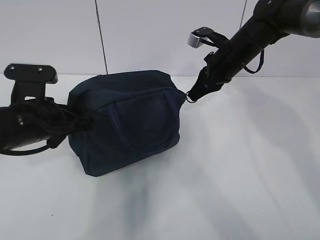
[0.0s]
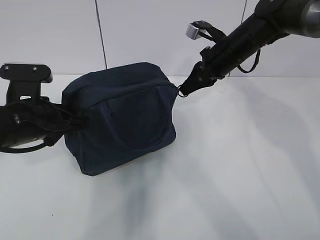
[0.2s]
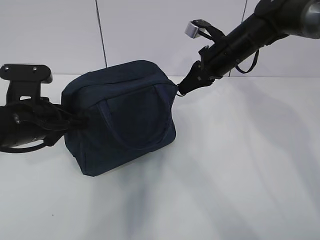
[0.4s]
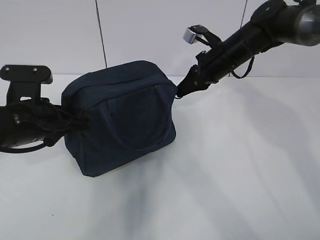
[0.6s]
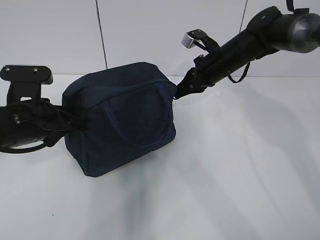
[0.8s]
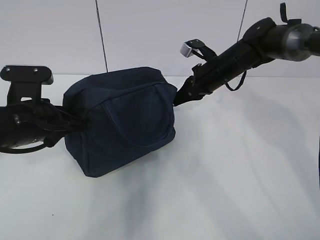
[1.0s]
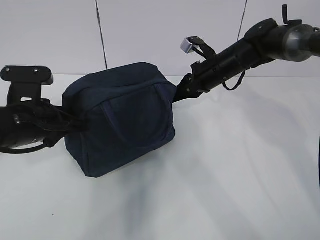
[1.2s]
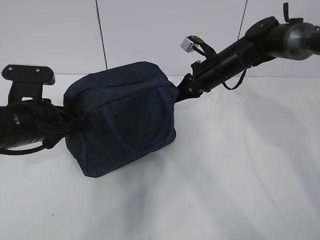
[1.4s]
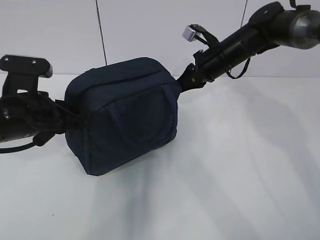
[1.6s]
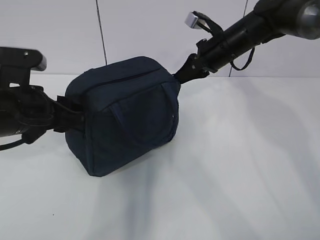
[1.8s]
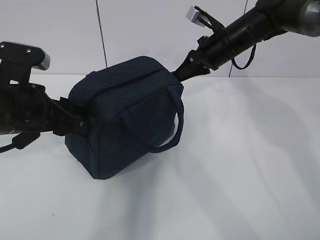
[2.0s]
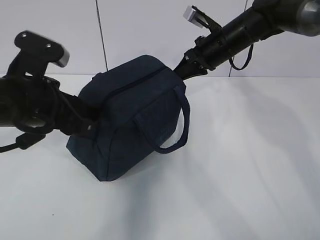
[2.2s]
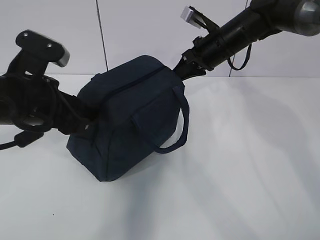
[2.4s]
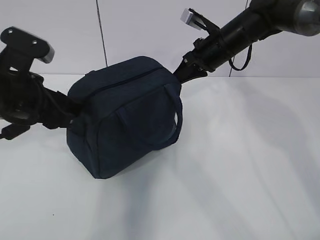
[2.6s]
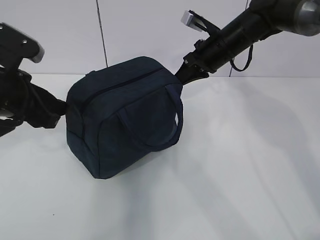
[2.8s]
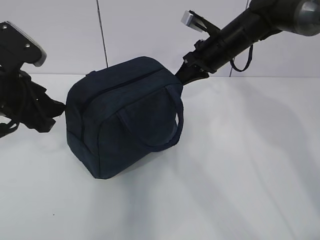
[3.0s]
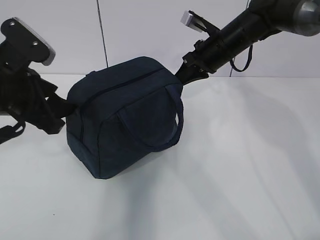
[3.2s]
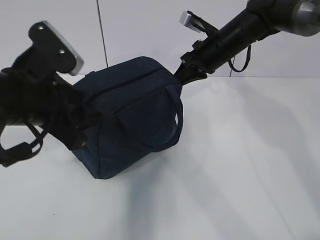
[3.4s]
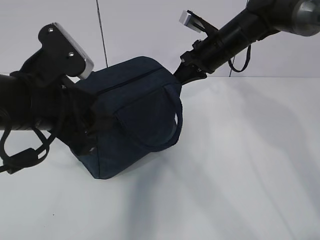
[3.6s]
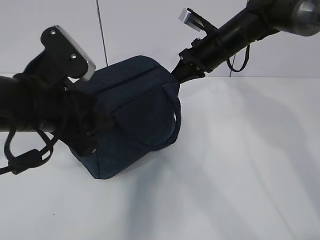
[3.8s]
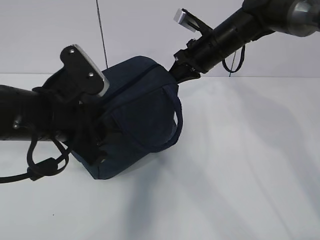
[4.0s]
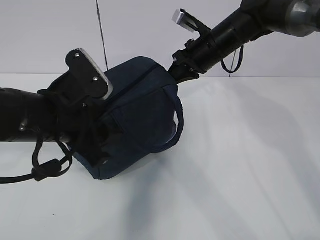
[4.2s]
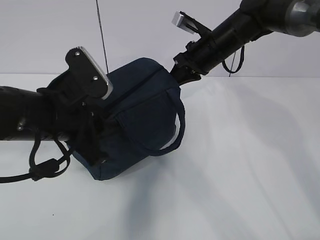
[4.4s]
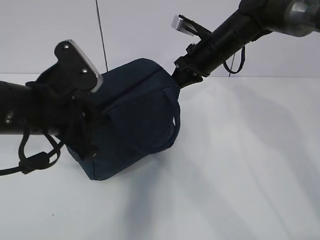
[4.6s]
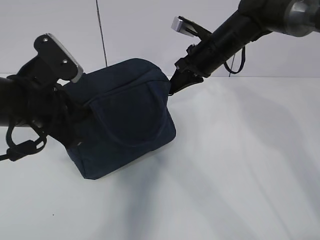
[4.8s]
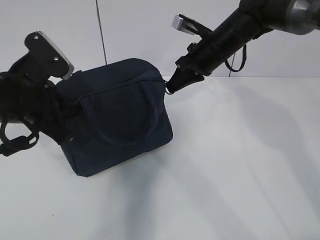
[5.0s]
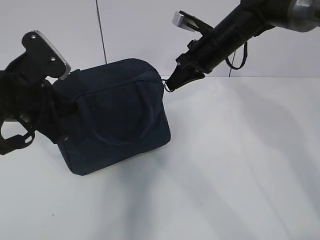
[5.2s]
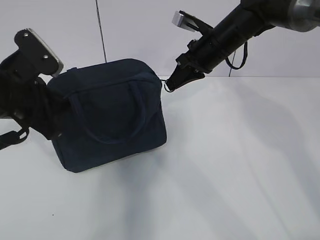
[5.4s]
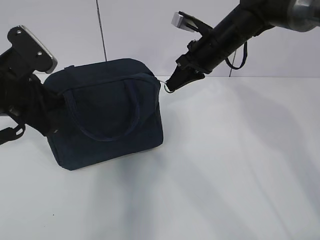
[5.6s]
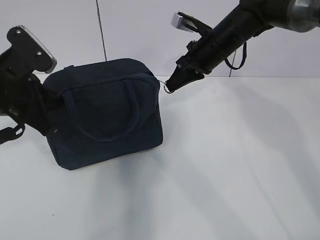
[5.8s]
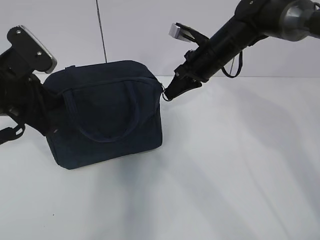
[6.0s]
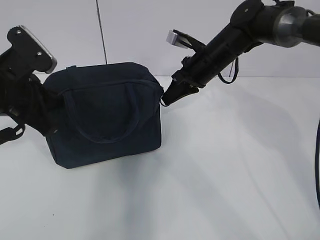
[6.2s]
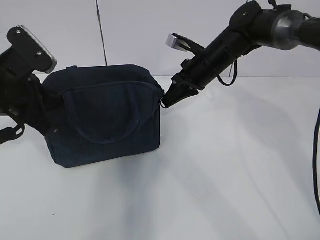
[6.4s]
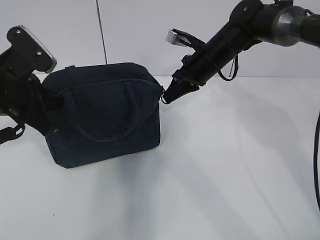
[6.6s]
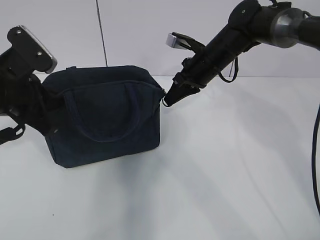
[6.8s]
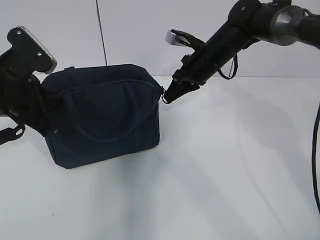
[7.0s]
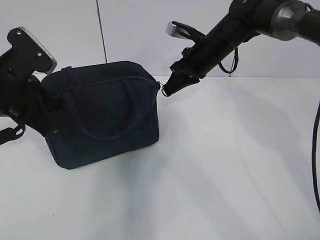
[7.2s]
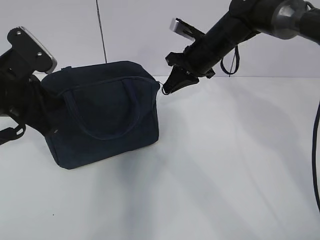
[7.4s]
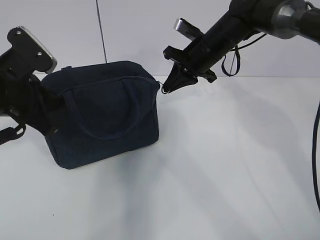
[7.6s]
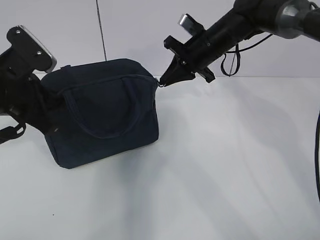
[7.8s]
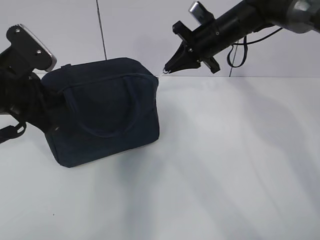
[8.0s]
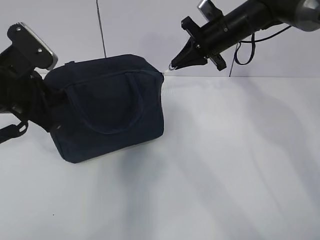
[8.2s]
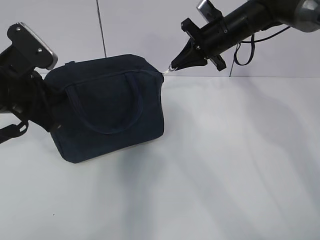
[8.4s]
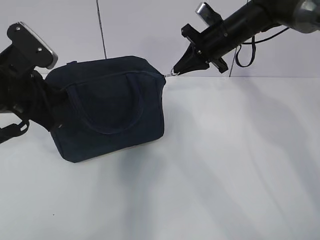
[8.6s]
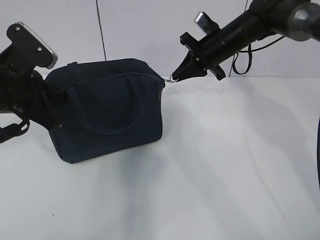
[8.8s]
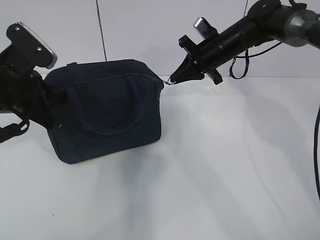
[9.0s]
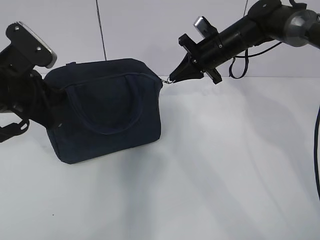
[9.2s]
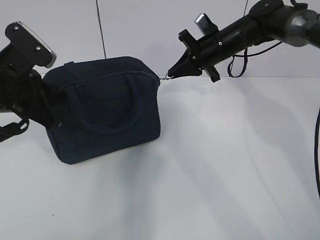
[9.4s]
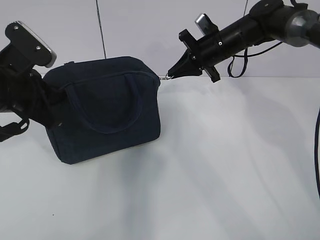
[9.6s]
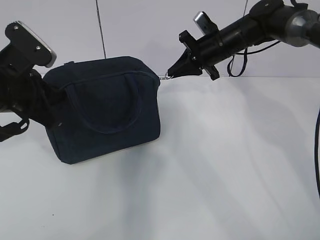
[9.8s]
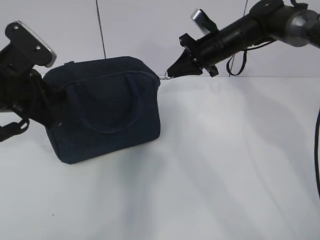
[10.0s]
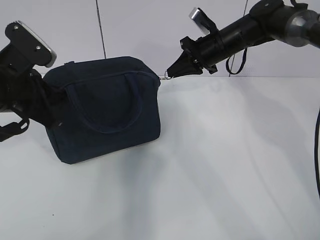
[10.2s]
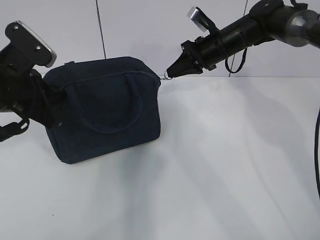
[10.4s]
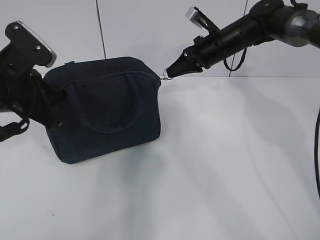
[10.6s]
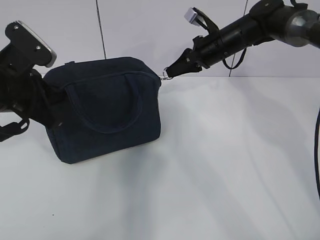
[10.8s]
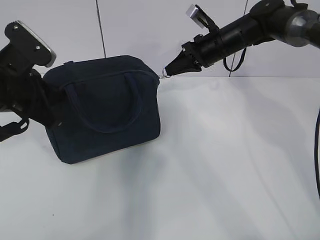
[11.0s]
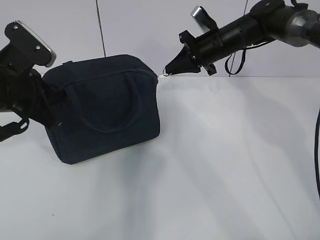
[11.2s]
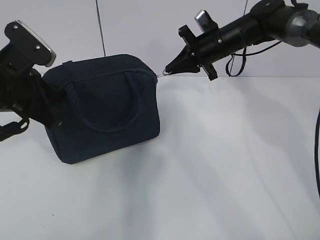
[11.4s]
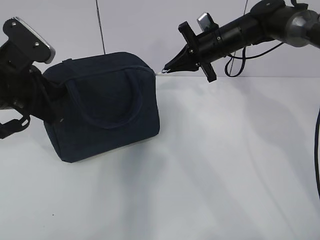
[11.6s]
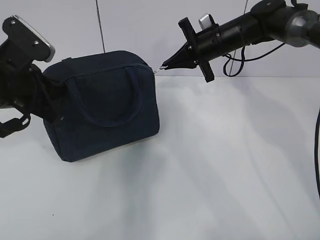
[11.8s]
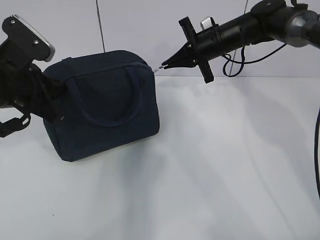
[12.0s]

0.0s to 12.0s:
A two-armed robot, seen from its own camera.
0.0s to 1.6s: There are only small adjustments of the grippers.
1.6s to 3.0s: The left gripper changes place by some 5 cm, and opens up.
3.0s to 4.4s: The left gripper travels to the right by approximately 10 cm, and closes its fingers.
4.4s to 6.0s: The left gripper moves to the left, about 10 cm, and closes its fingers.
7.6s to 9.0s: The grippers move only a little.

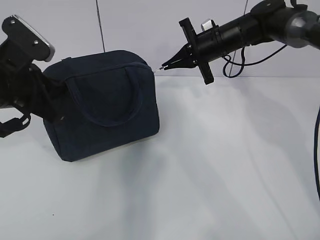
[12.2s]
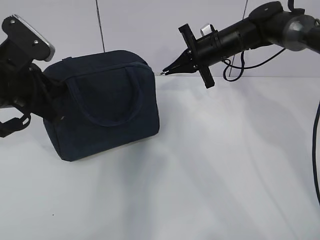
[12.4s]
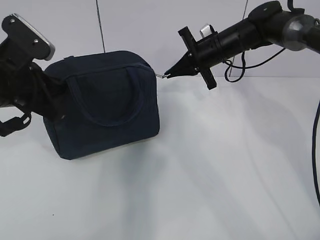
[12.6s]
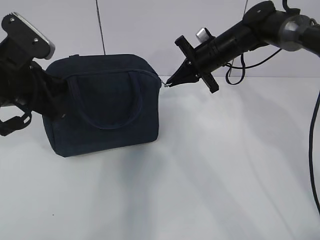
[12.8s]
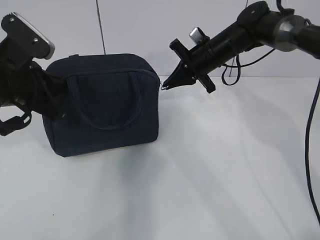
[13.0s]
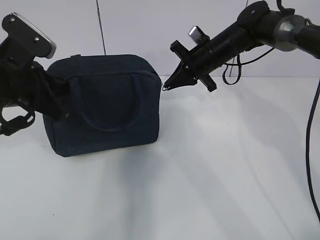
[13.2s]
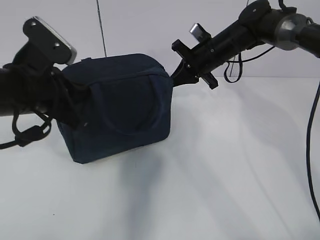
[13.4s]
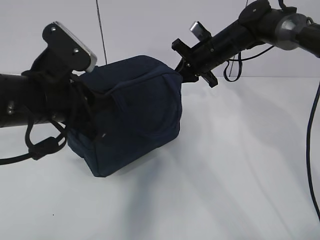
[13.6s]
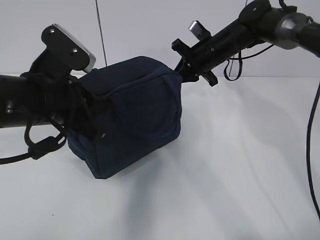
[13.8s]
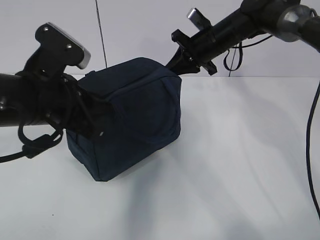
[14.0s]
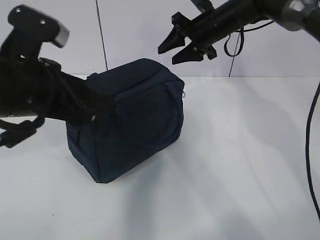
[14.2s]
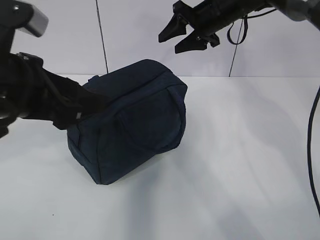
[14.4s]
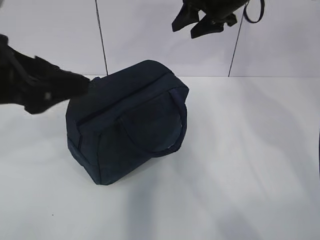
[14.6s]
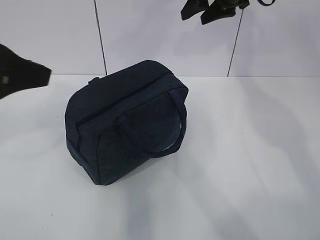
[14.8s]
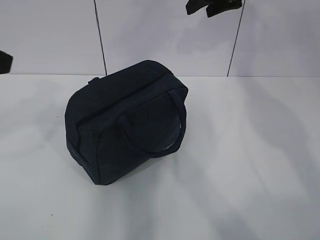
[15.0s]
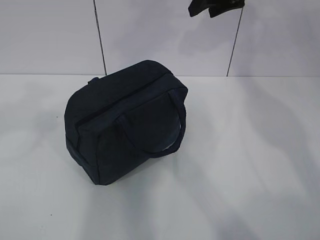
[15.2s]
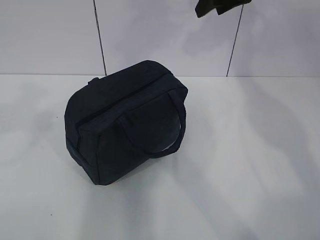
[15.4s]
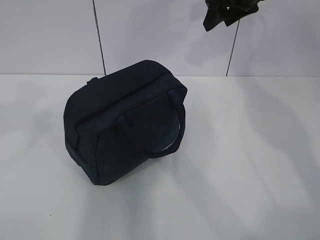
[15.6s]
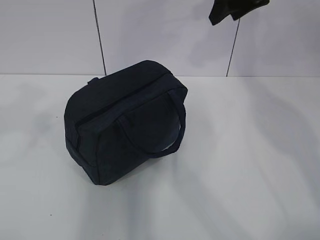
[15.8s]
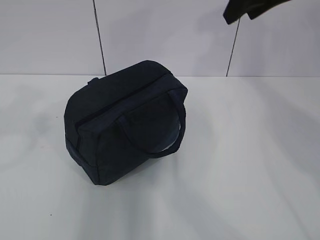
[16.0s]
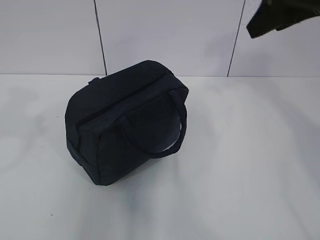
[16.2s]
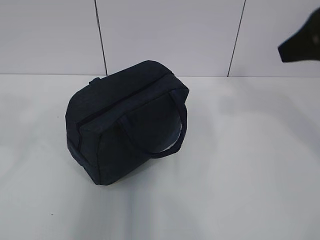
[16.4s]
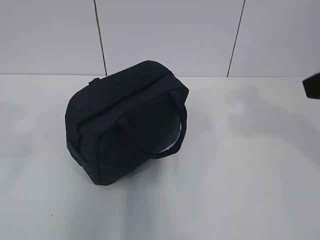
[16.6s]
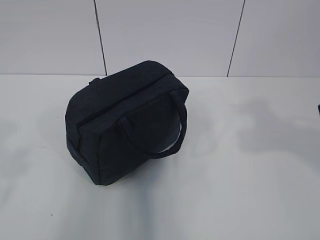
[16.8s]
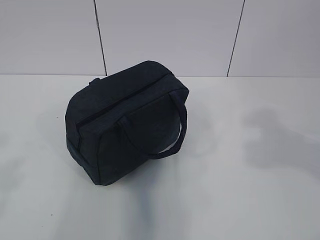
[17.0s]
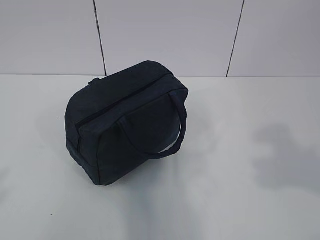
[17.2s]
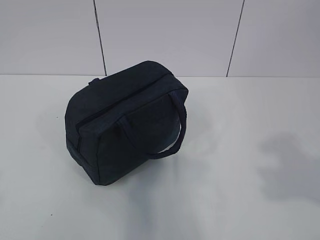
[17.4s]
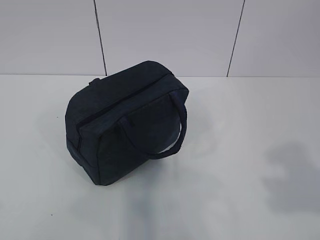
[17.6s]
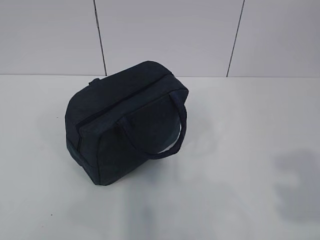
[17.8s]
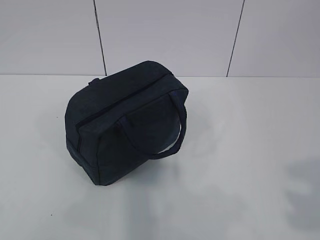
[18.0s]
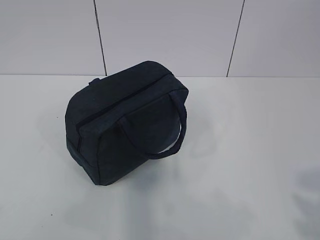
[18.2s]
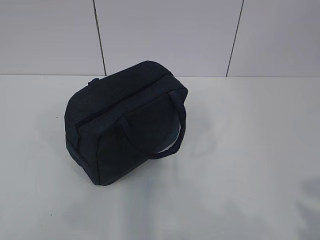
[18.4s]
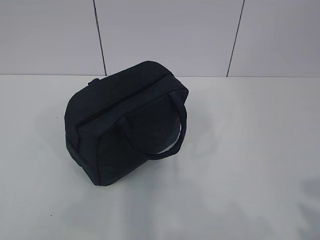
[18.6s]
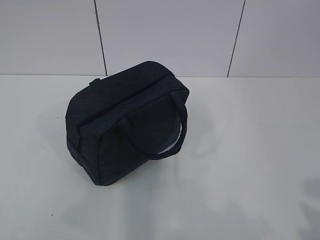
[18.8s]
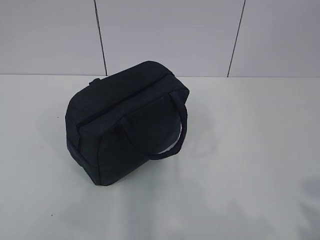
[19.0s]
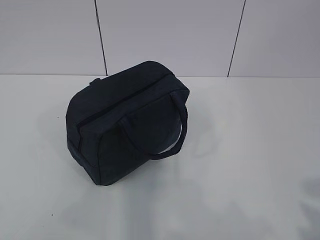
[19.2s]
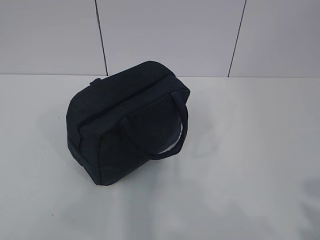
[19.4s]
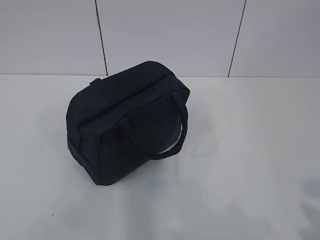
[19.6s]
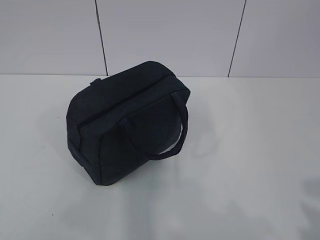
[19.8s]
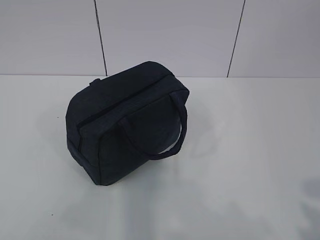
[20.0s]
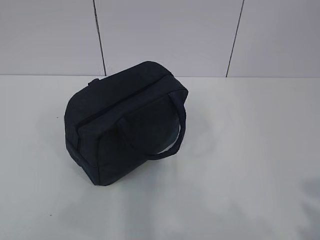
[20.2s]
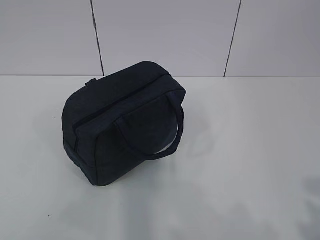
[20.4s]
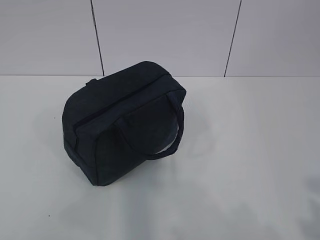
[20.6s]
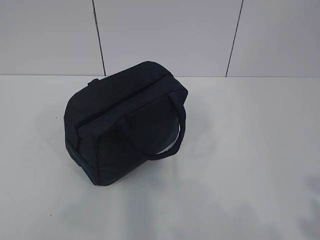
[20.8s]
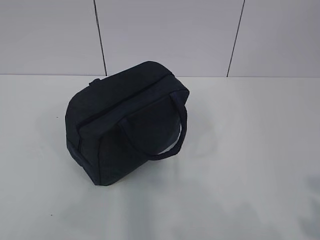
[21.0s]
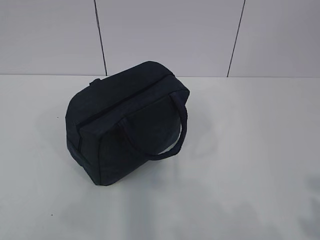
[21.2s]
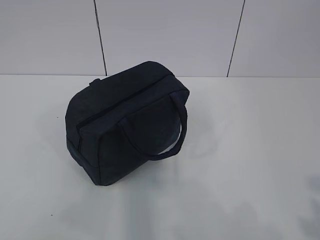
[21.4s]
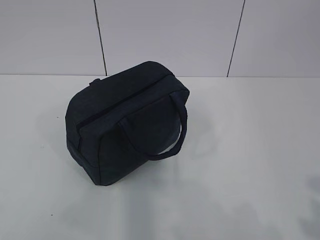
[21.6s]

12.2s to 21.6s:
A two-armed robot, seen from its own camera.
12.2s to 13.8s: The left gripper heads to the right, covering approximately 5 cm.
13.8s to 15.4s: The right gripper shifts roughly 15 cm upward, and opens up; the left gripper moves to the left, upward and backward, some 20 cm, and opens.
15.4s to 17.0s: The left gripper is displaced backward by roughly 15 cm, while the right gripper moves backward, about 35 cm.
17.0s to 18.4s: The left gripper goes approximately 5 cm backward. Meanwhile the right gripper heads backward and downward, covering roughly 15 cm.
18.4s to 20.0s: The two grippers keep their place.

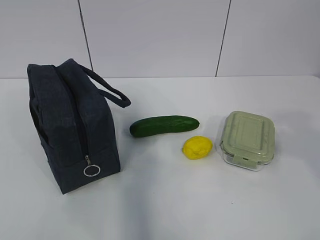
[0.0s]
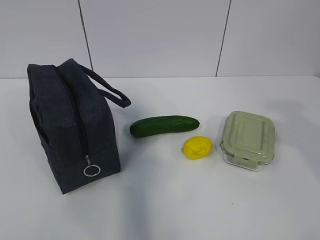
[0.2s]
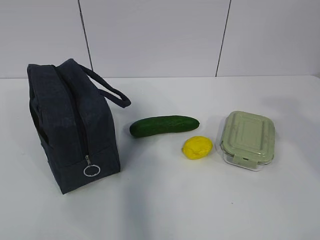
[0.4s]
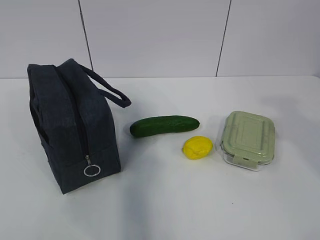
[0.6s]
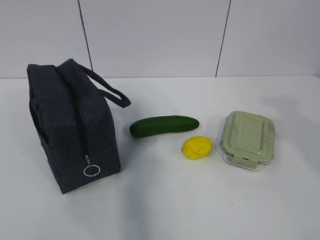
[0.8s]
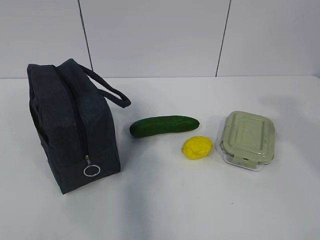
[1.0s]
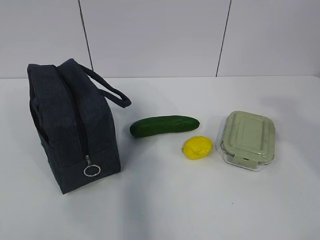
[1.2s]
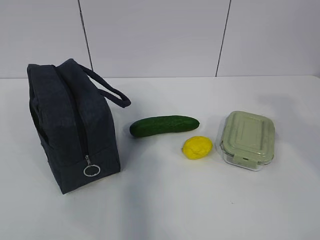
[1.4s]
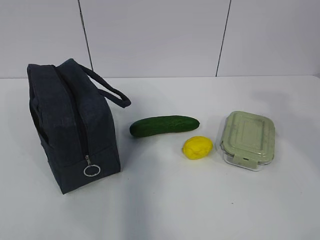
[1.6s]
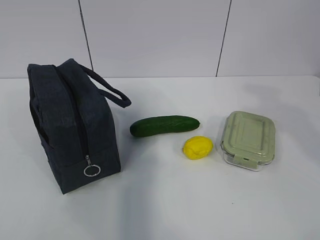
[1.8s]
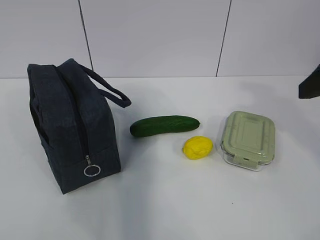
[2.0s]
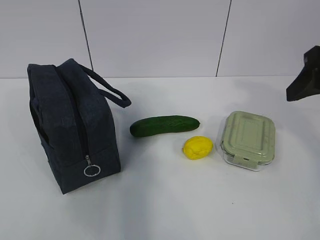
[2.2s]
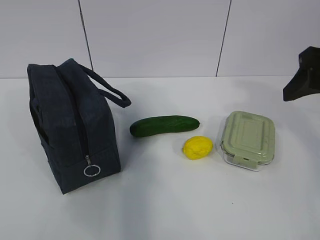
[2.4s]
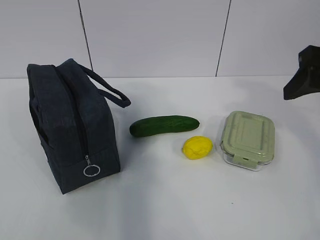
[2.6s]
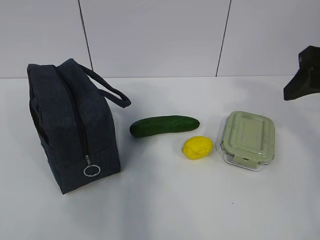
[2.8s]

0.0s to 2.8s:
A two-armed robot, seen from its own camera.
1.4s to 2.8s: The right gripper is displaced forward by roughly 10 cm.
